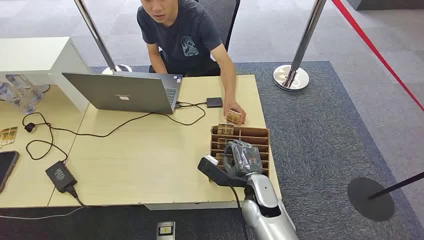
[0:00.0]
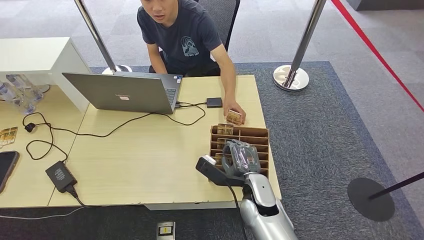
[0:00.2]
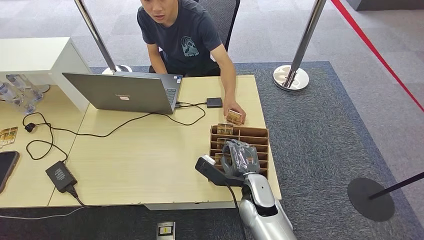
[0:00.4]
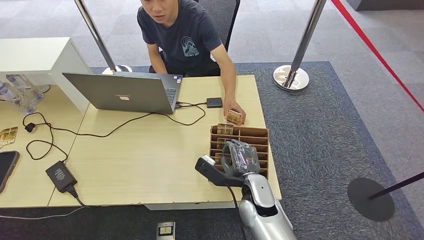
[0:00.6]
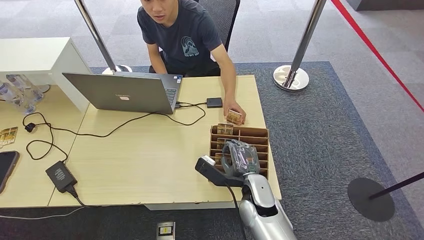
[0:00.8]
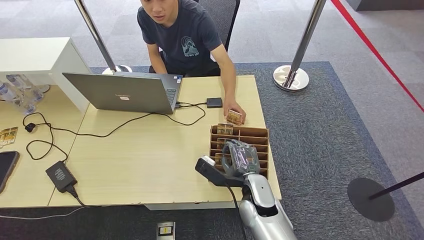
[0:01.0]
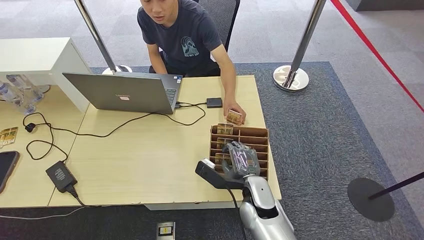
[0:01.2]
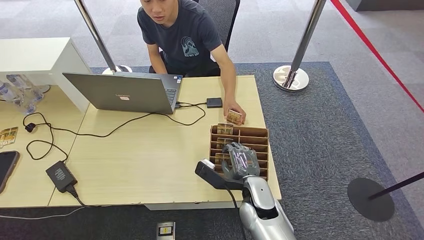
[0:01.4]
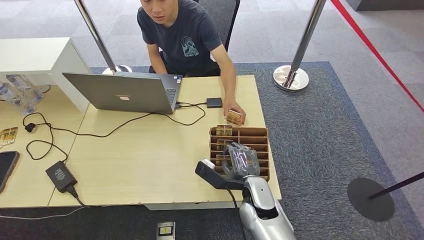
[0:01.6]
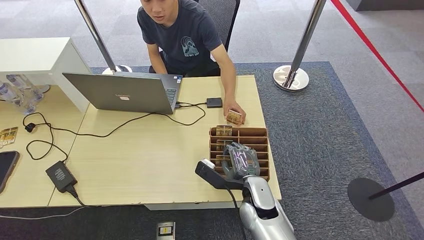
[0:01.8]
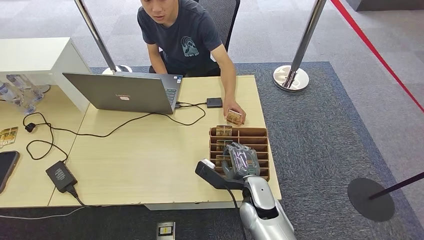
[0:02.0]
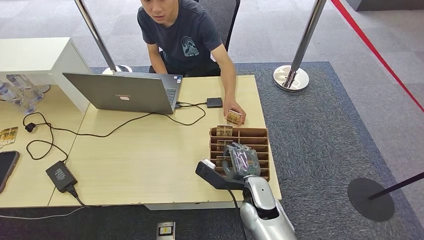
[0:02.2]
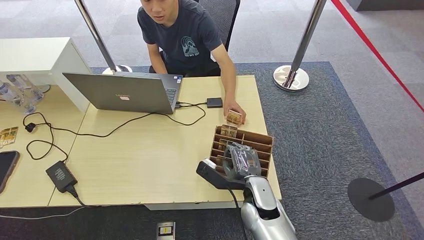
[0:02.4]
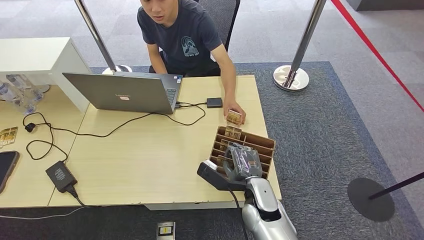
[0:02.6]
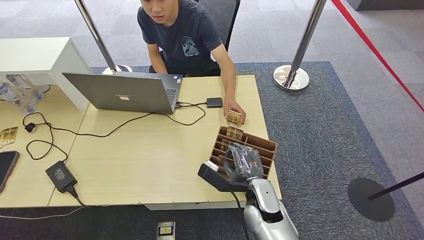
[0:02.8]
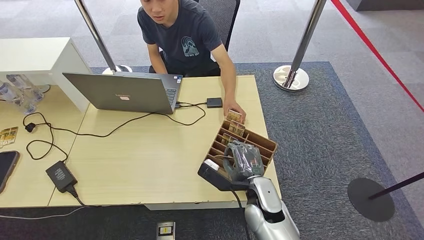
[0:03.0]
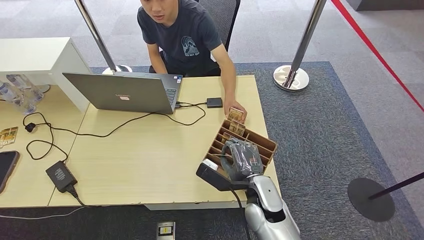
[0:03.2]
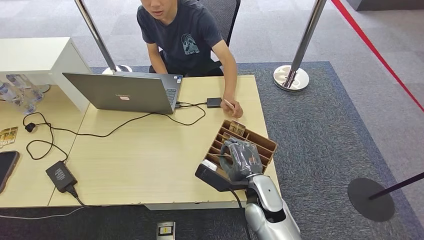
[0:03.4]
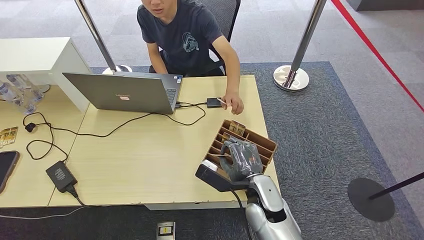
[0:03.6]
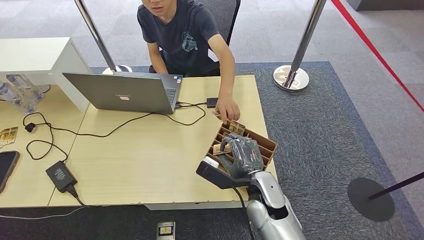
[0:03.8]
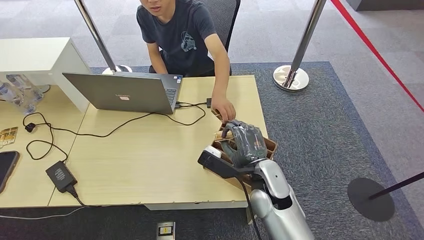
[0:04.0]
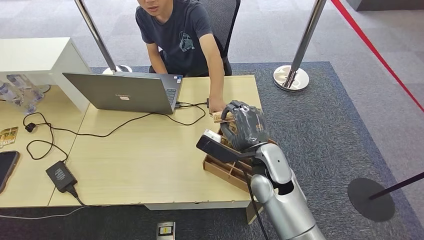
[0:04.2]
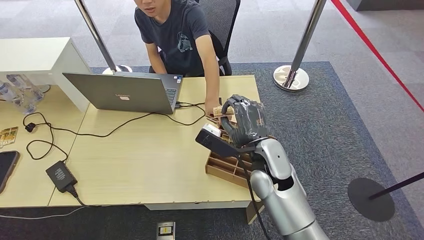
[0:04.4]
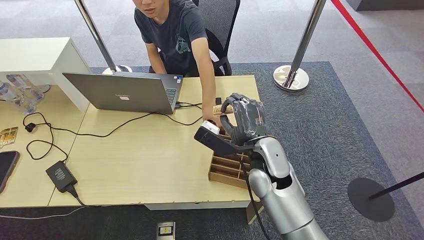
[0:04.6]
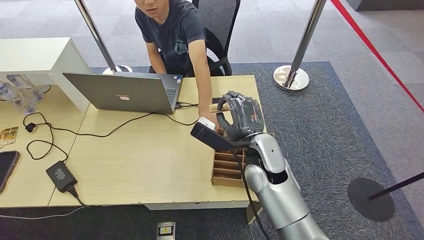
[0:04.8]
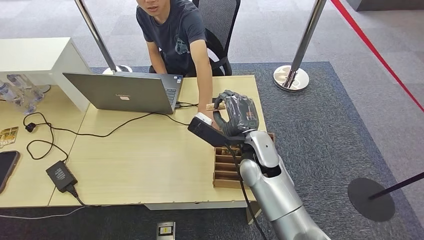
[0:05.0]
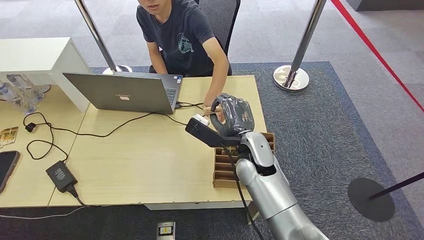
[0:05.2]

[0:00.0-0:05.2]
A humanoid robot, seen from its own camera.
Step, 0:00.0 to 0:03.8: Pick up the key card from the card box.
Step, 0:04.6 to 0:05.2: Hand the key card to the target.
0:01.8 to 0:03.4: There are only small adjustments of the hands.
0:03.4 to 0:05.2: The right hand moves forward and upward, approximately 10 cm.
